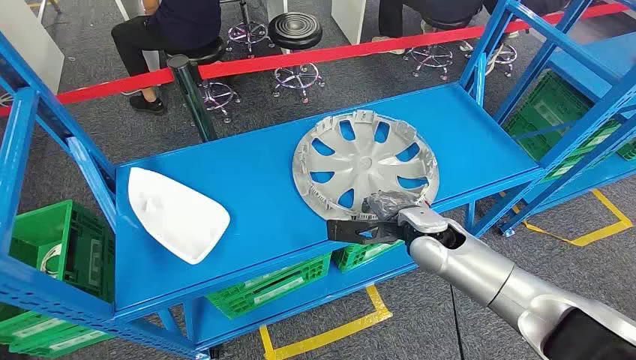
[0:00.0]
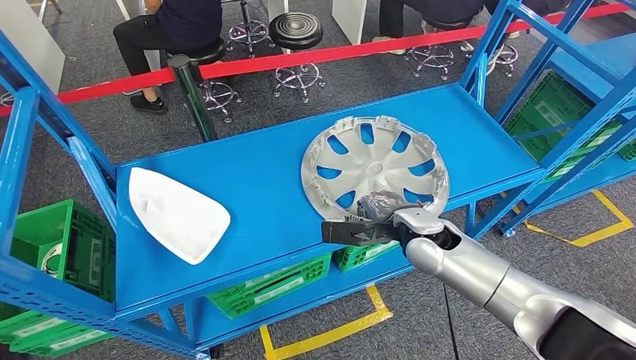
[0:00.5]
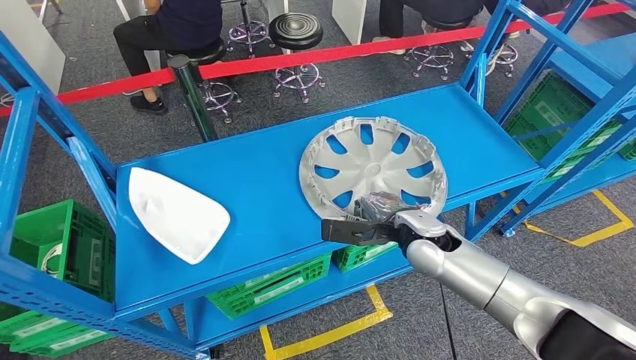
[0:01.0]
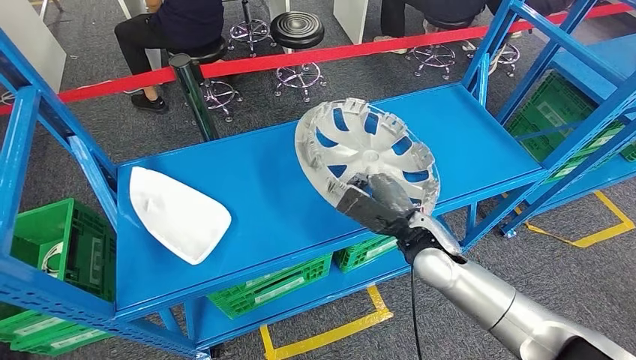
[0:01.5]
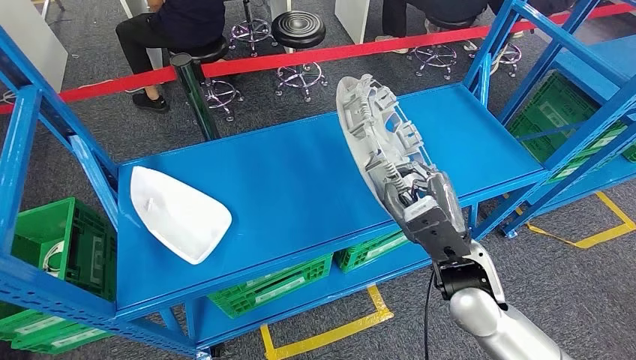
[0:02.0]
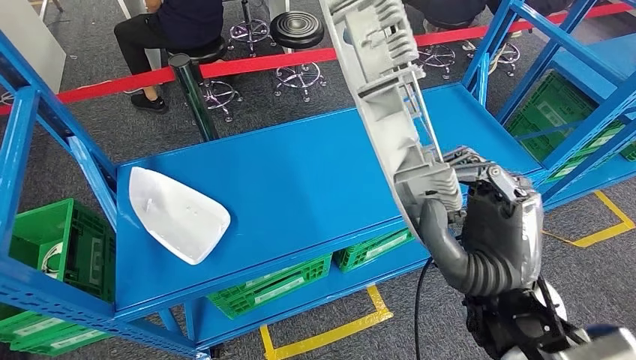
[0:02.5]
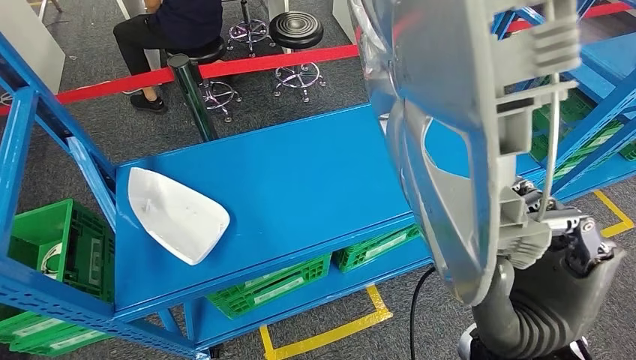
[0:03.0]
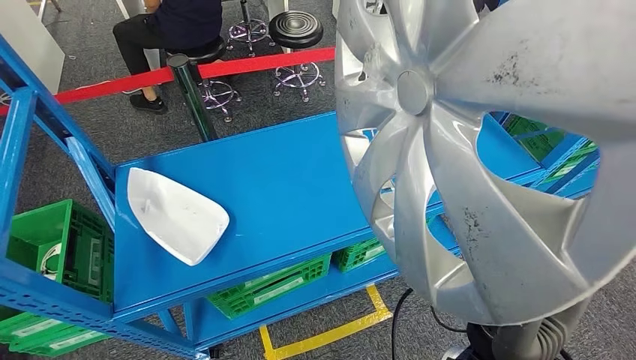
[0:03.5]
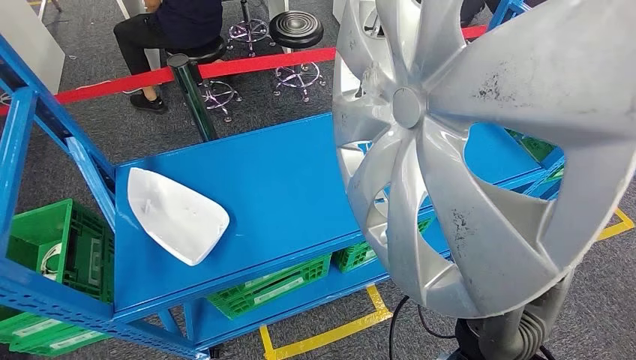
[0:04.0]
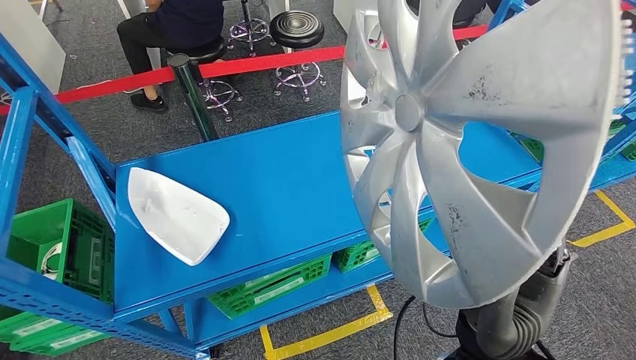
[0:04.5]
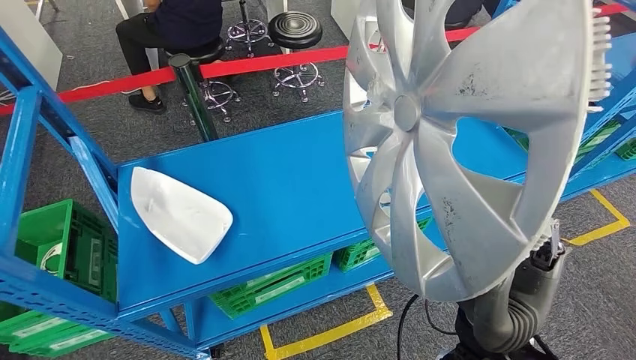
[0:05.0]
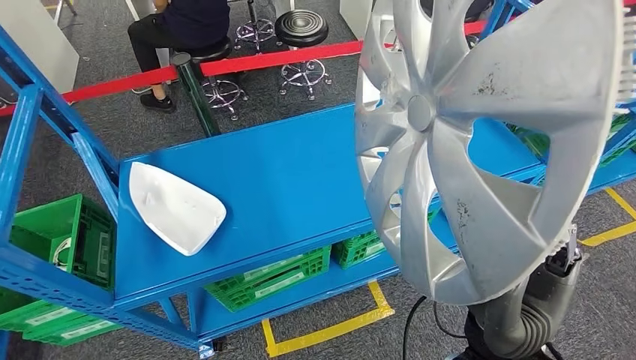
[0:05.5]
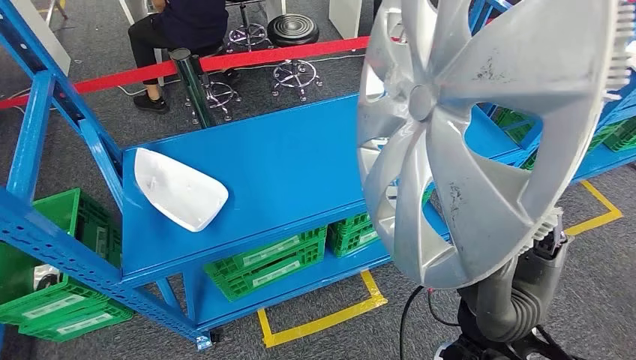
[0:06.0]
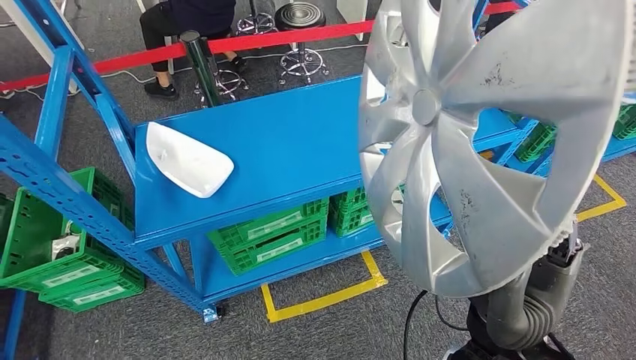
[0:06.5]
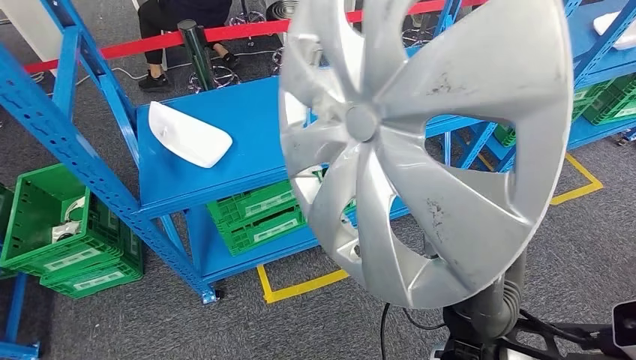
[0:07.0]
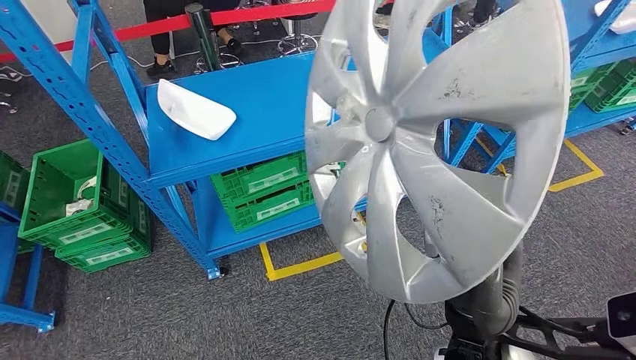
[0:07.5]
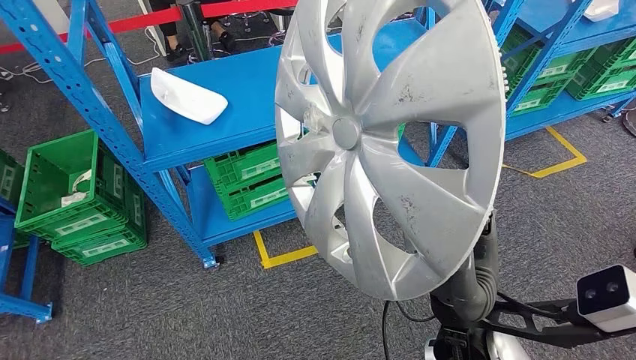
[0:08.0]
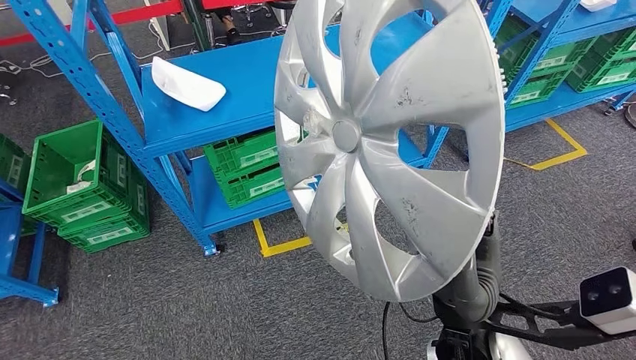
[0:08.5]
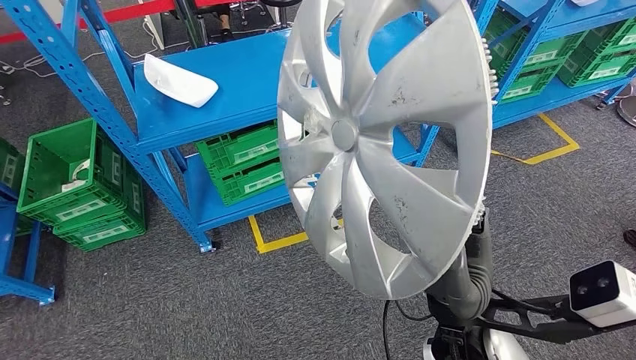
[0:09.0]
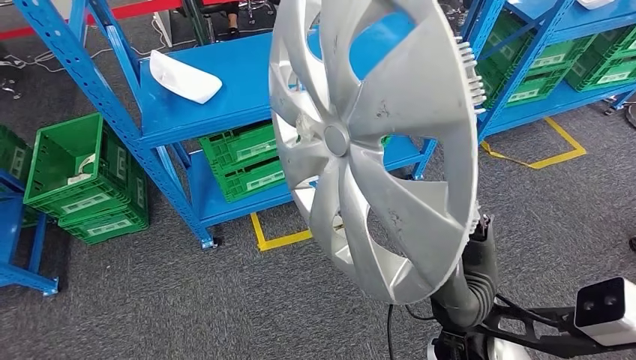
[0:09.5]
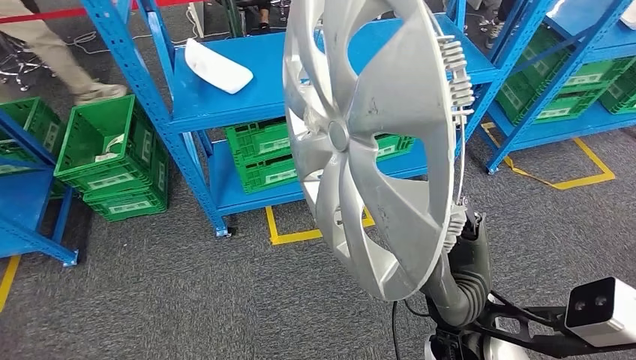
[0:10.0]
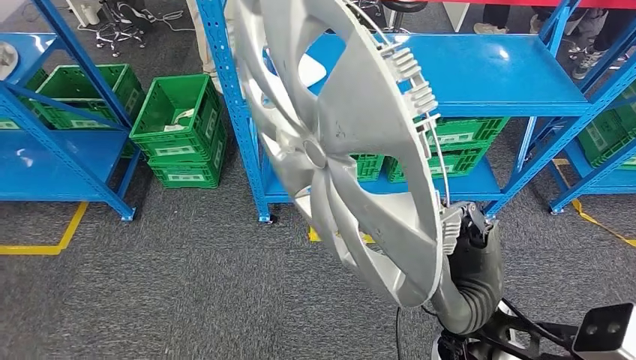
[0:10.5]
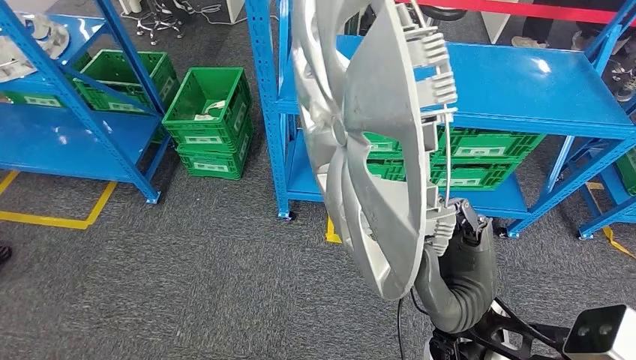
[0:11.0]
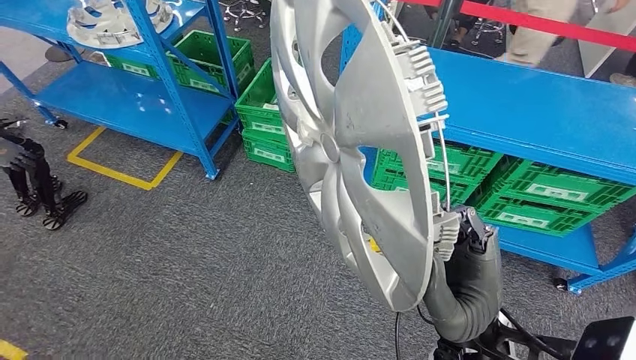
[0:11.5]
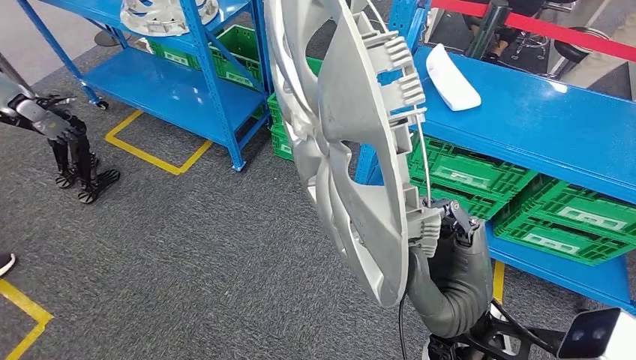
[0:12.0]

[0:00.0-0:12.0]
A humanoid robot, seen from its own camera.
Step, 0:00.0 to 0:04.0: Pick up the small component from the shelf.

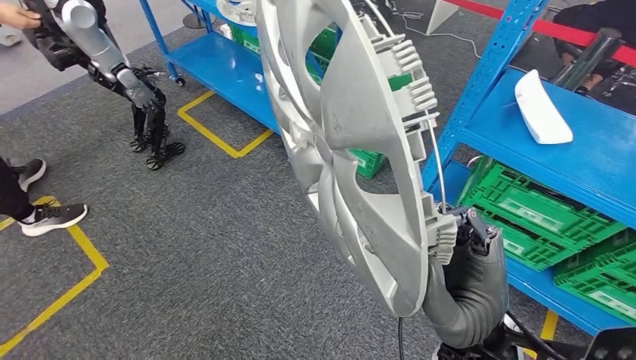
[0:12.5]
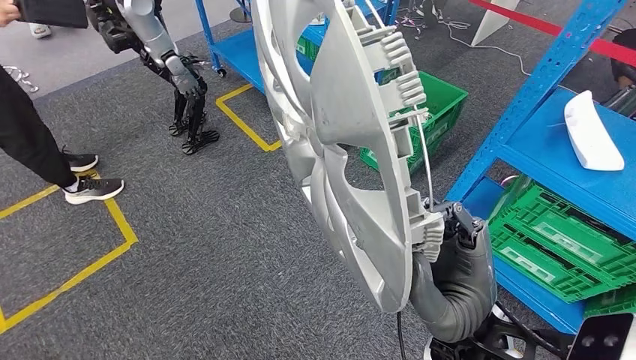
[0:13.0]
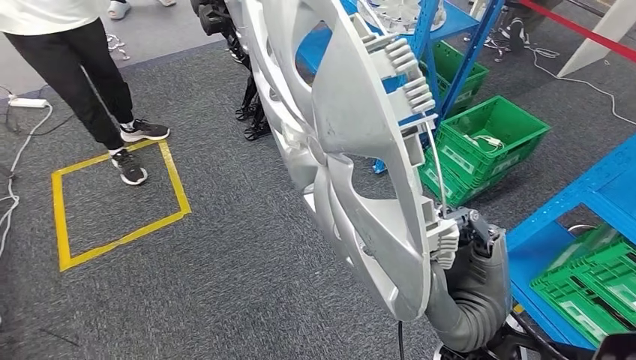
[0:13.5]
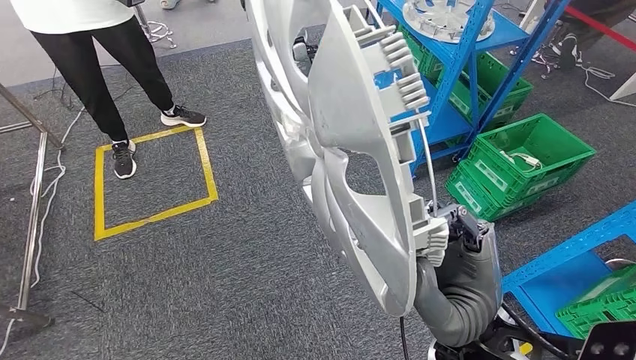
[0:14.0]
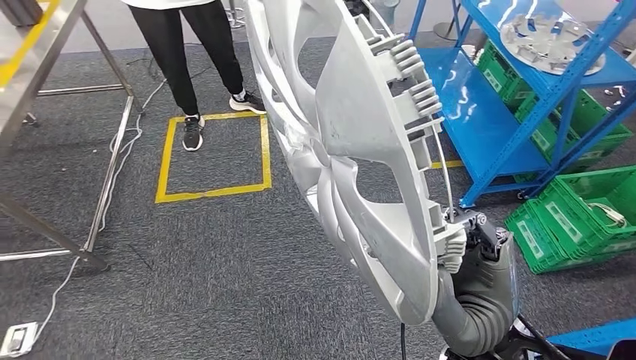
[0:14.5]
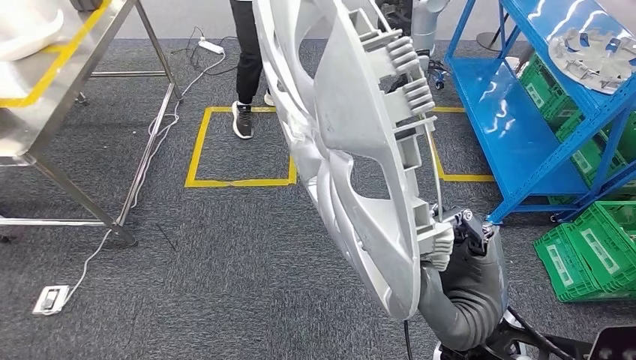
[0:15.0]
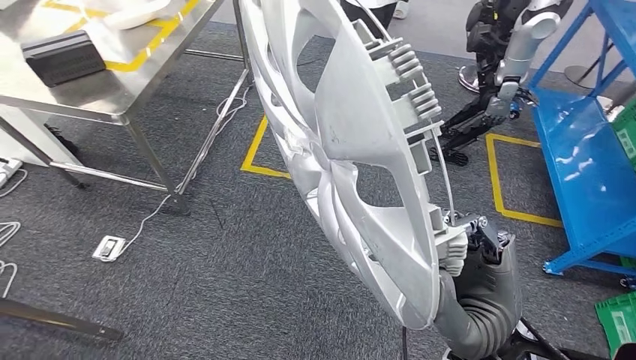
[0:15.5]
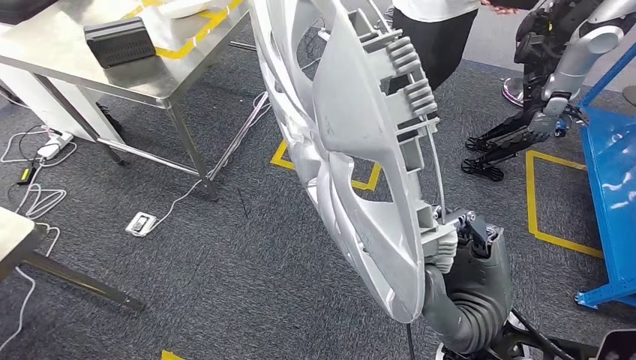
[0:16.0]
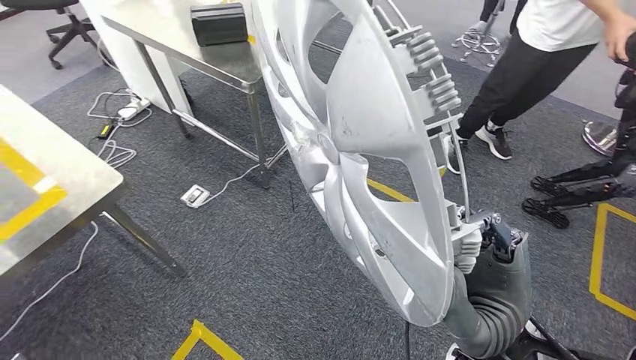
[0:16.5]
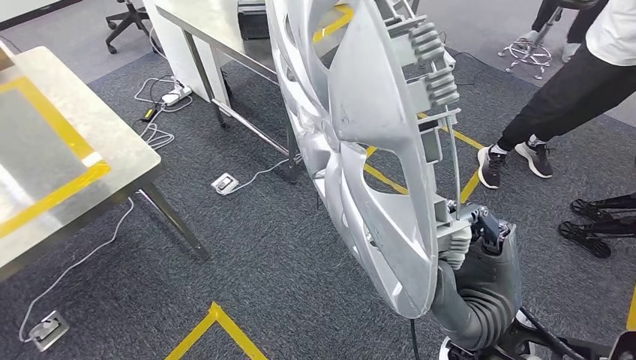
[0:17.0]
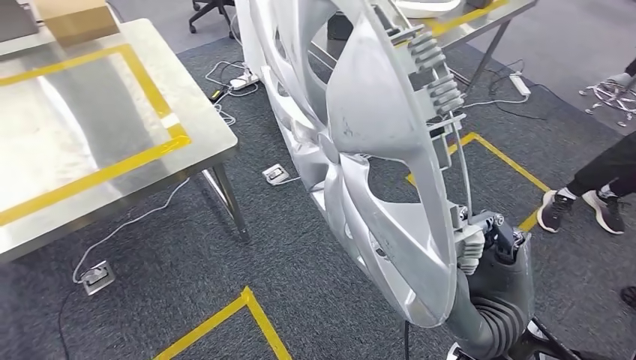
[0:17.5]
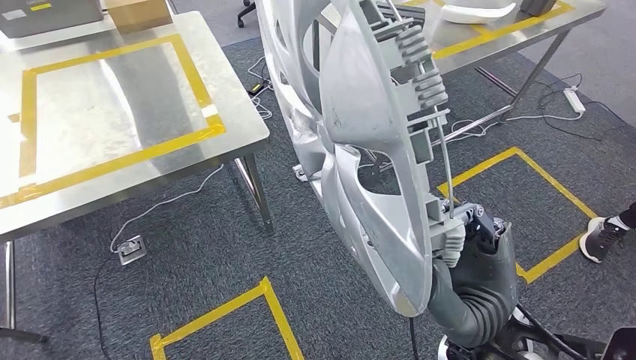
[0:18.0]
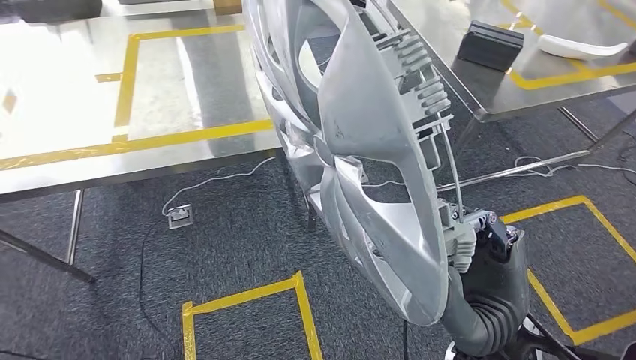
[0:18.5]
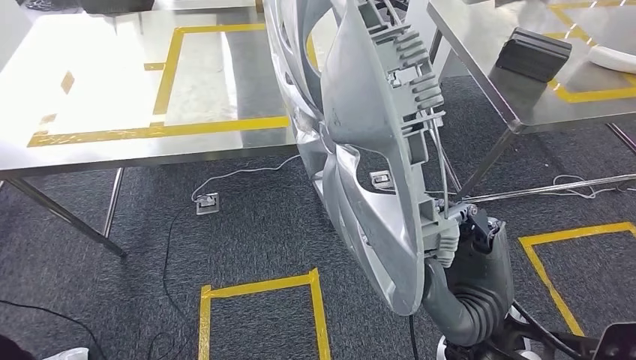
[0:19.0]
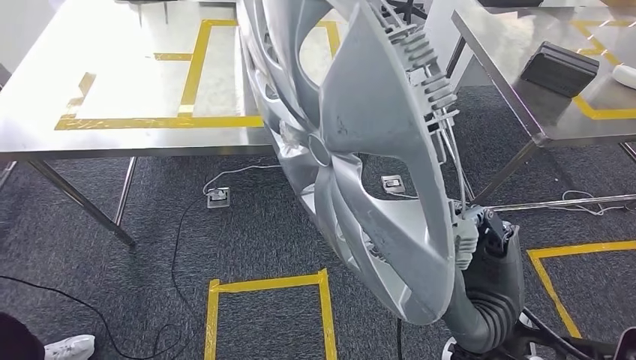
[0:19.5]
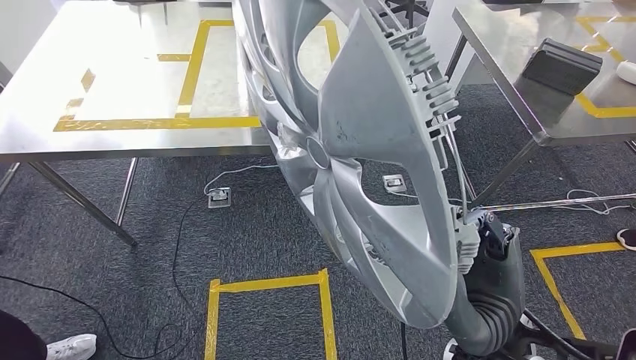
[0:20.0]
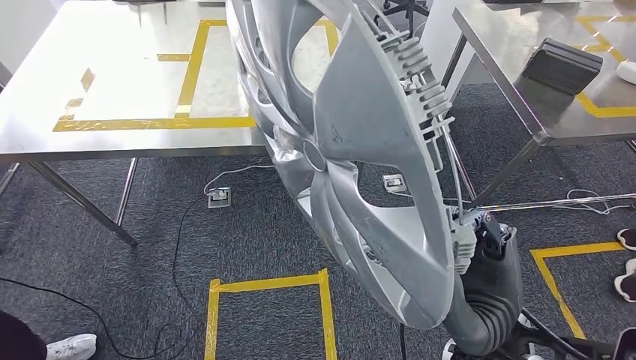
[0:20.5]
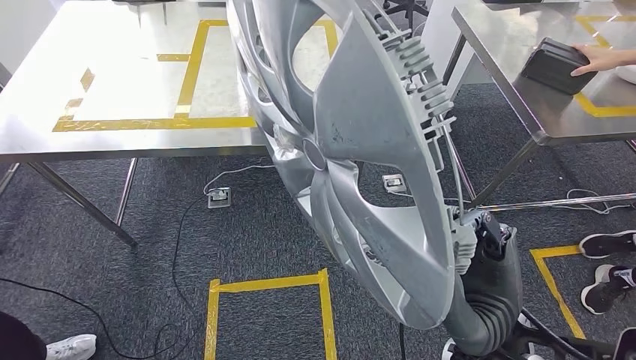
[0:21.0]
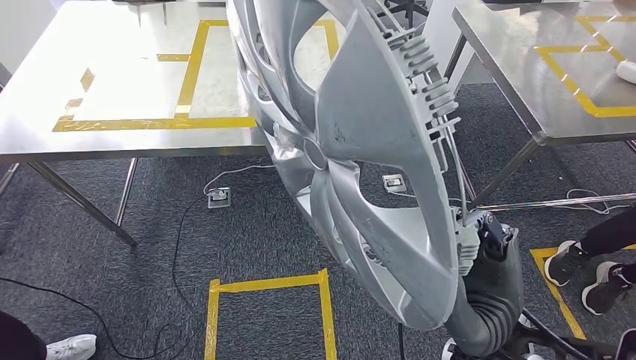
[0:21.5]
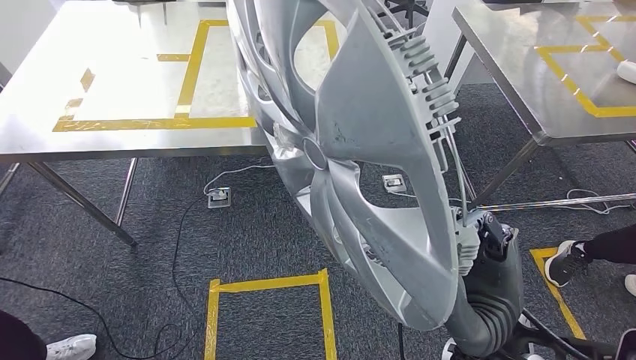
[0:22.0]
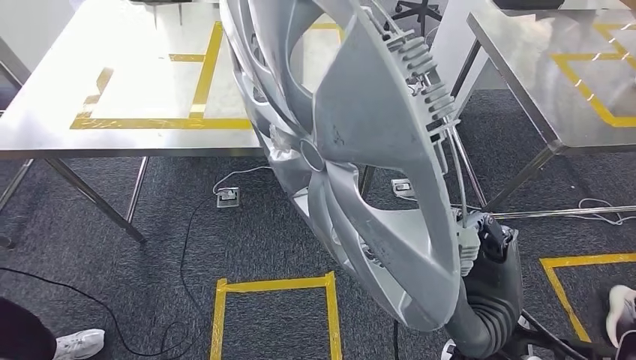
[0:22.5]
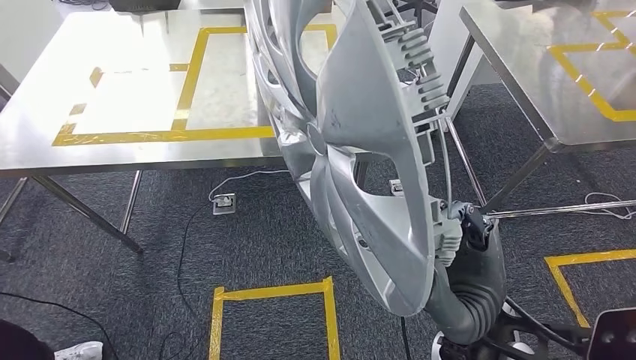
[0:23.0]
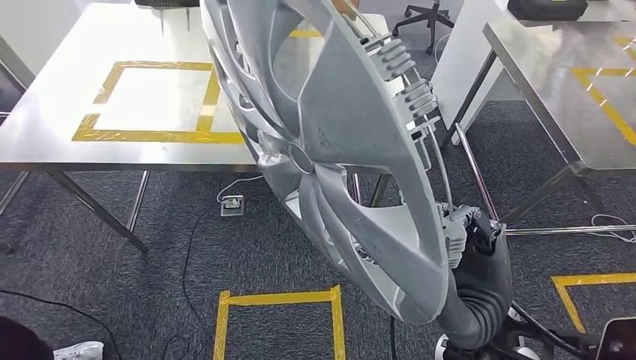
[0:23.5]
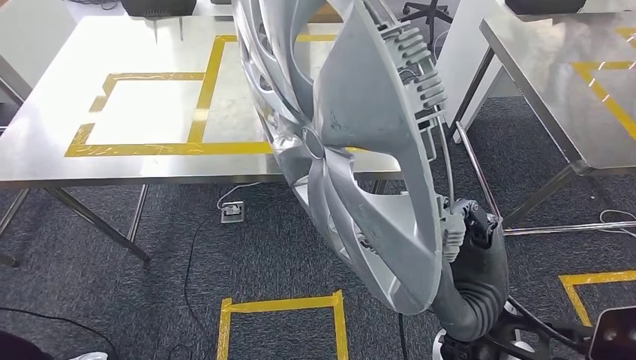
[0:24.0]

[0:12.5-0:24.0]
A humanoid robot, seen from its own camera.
Step, 0:12.5 to 0:20.0: Move the small component to the workbench.
0:20.0 to 0:22.0: Neither hand changes place.
